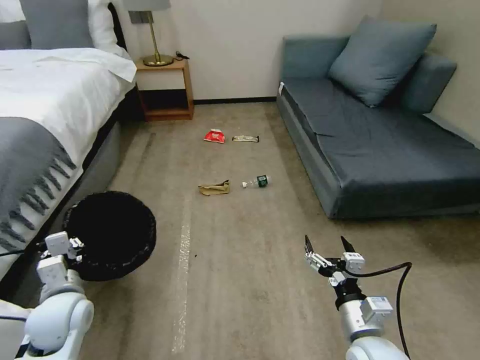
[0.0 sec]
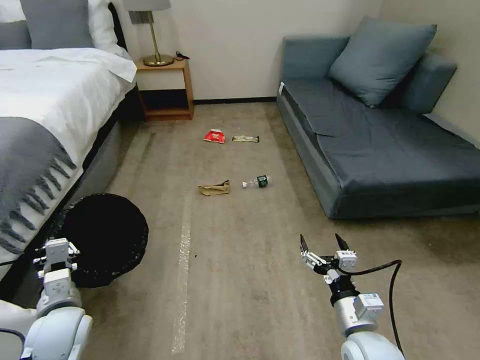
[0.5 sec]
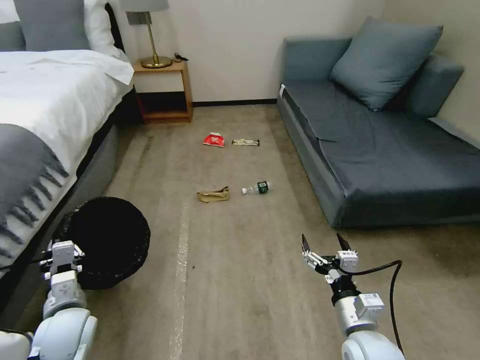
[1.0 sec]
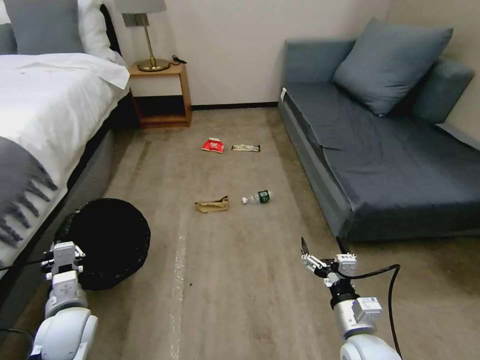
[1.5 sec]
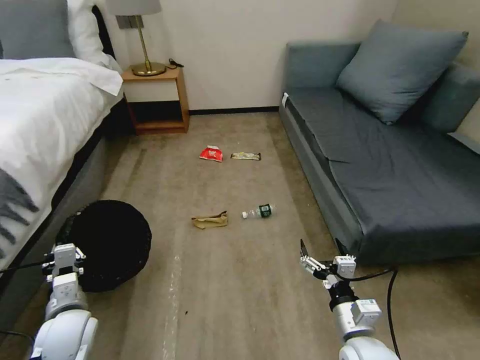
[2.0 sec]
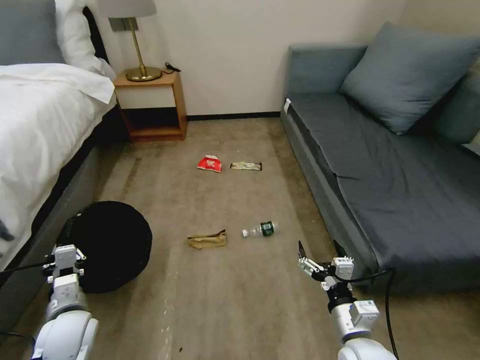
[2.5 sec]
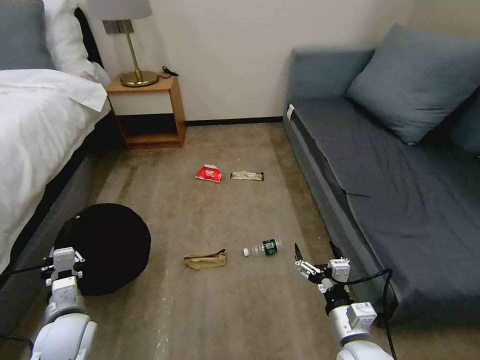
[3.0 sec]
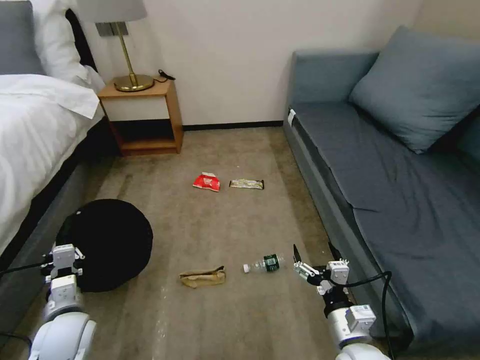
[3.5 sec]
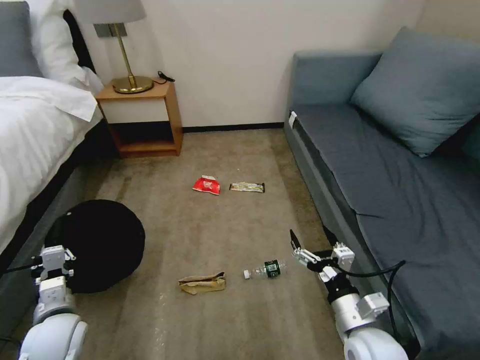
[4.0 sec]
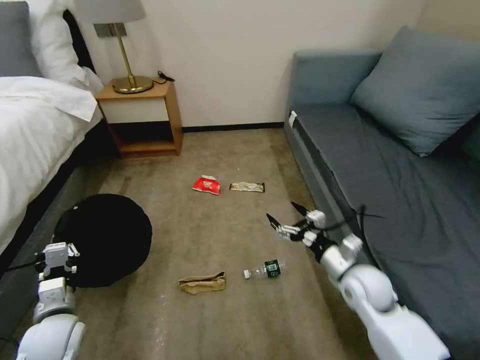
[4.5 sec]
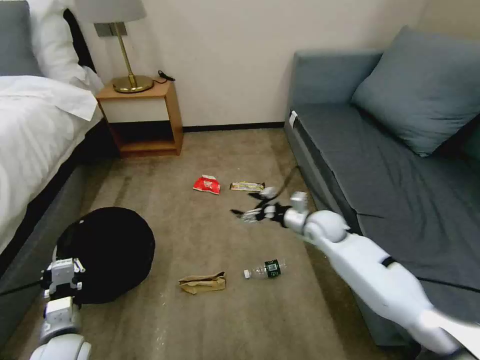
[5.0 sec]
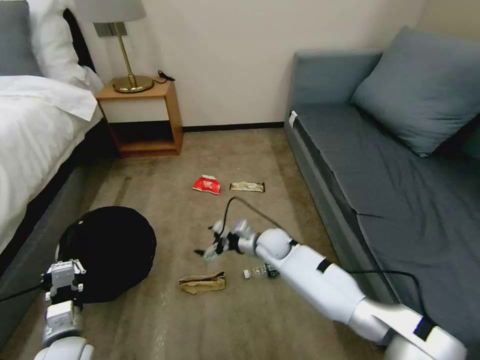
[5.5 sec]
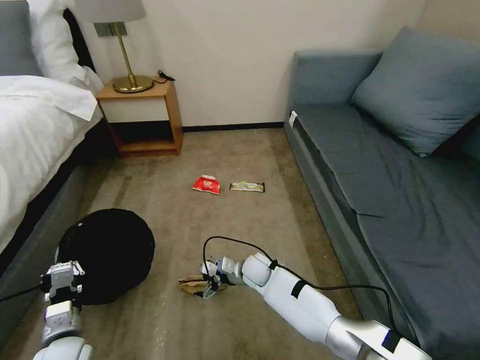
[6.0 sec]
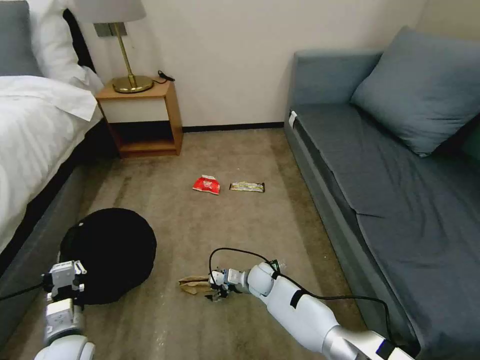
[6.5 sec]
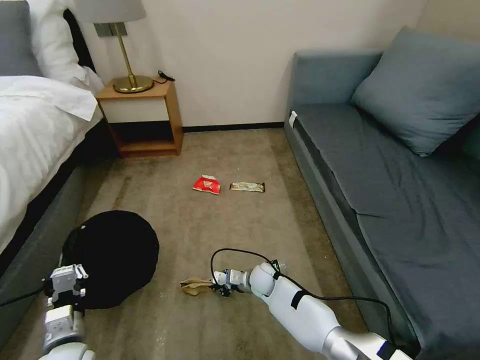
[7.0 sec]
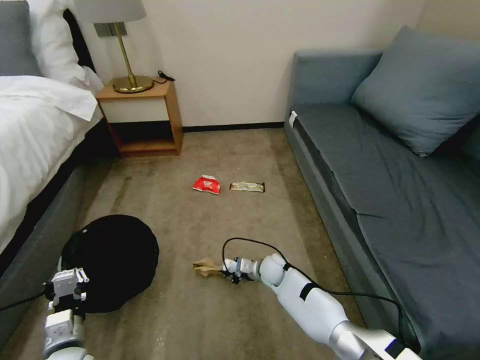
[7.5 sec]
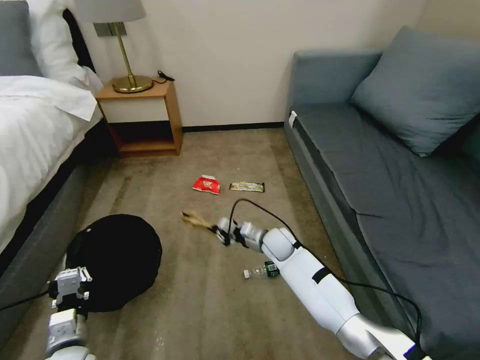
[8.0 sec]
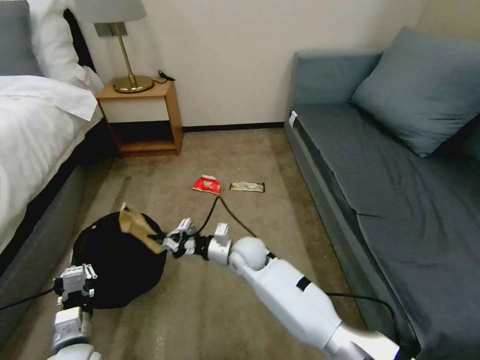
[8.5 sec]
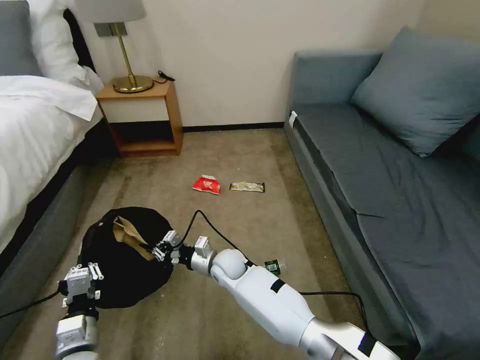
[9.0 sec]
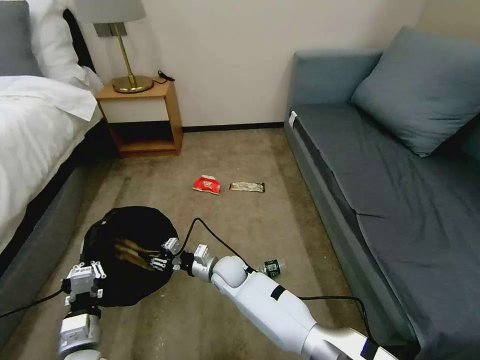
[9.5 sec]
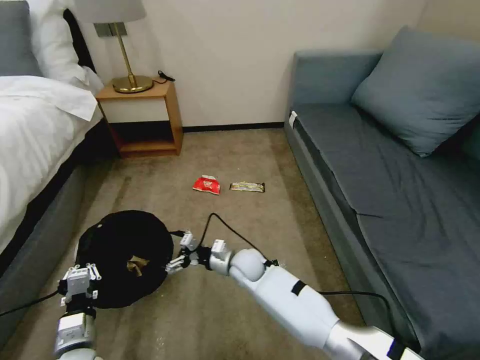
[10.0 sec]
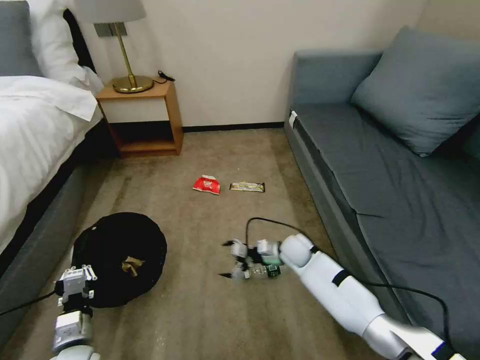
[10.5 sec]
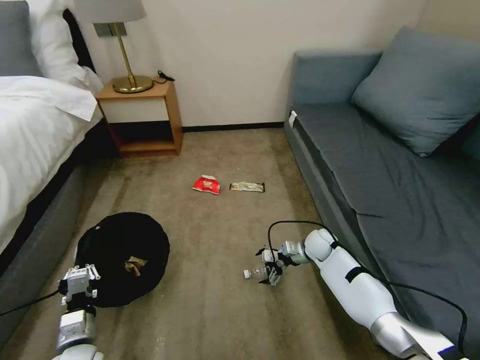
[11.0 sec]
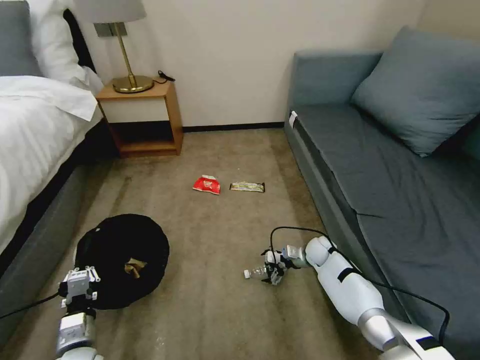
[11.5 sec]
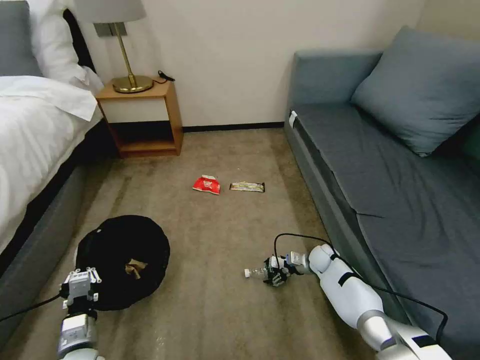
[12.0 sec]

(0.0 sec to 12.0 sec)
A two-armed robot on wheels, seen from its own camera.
Task of the whole recording: Pick up the trash bin, then pick up the garbage on the floor and place it into the trash bin.
0.0 sec - 2.0 sec: The left gripper ends up approximately 5 cm from where it was.
4.0 sec - 6.0 sec: The right gripper is displaced forward, to the left and downward by some 35 cm. Meanwhile the left gripper moves approximately 5 cm.
6.0 sec - 8.0 sec: The right gripper goes about 10 cm upward and to the right, and closes up.
8.0 sec - 10.0 sec: The right gripper moves to the left and backward, some 10 cm, and opens up.
10.0 sec - 12.0 sec: The right gripper goes about 25 cm to the right.

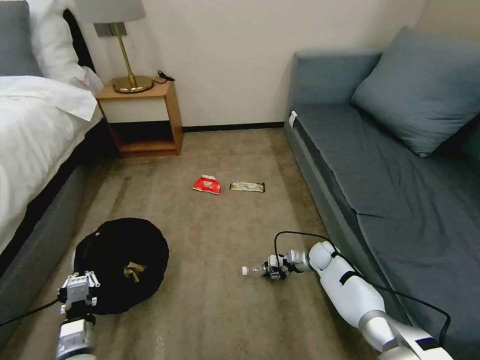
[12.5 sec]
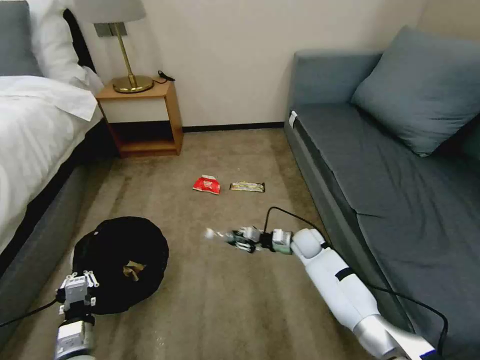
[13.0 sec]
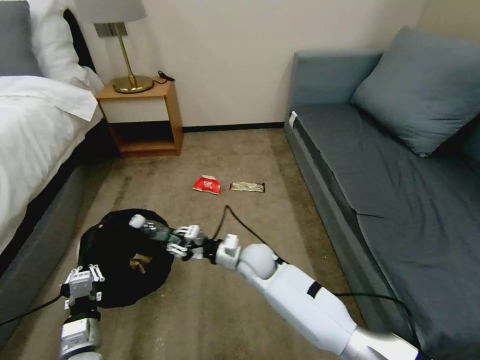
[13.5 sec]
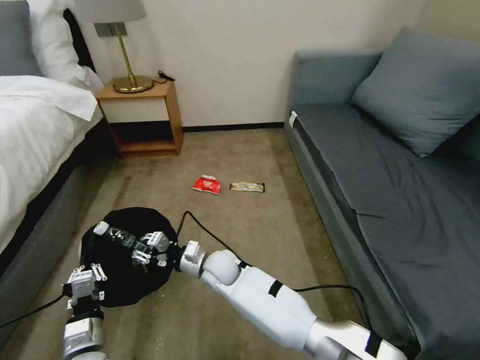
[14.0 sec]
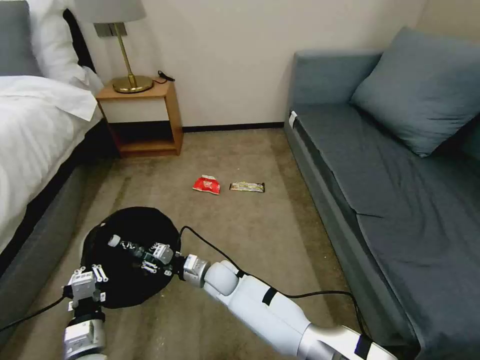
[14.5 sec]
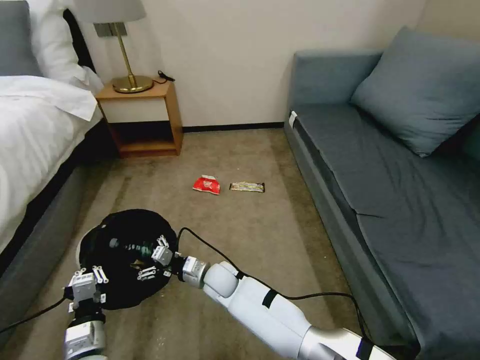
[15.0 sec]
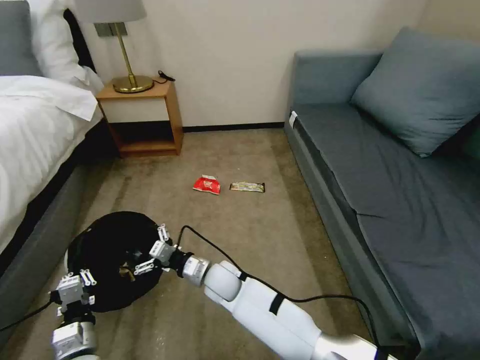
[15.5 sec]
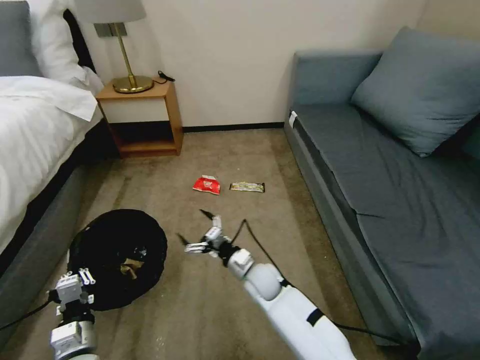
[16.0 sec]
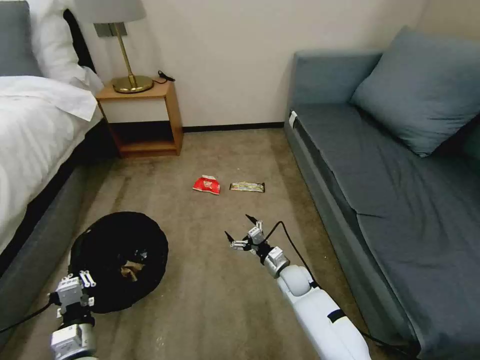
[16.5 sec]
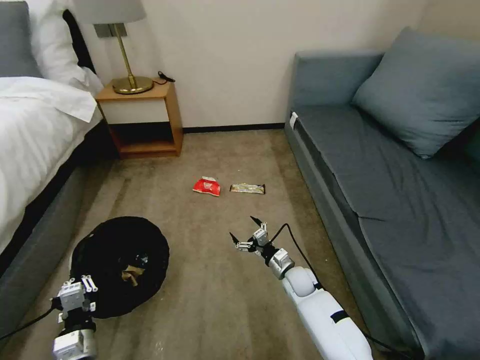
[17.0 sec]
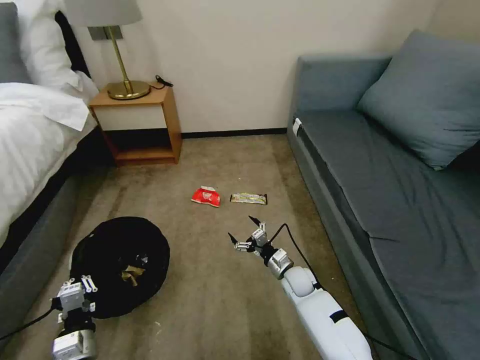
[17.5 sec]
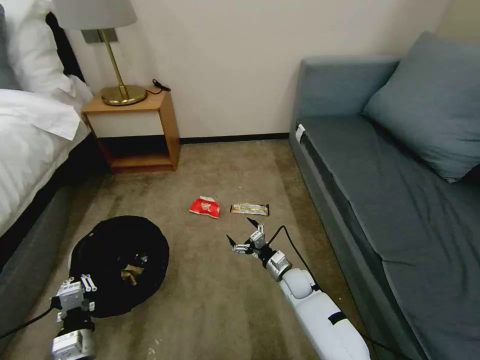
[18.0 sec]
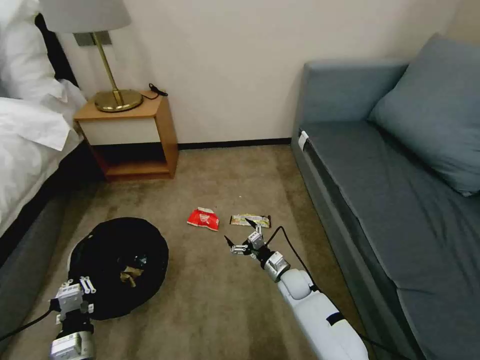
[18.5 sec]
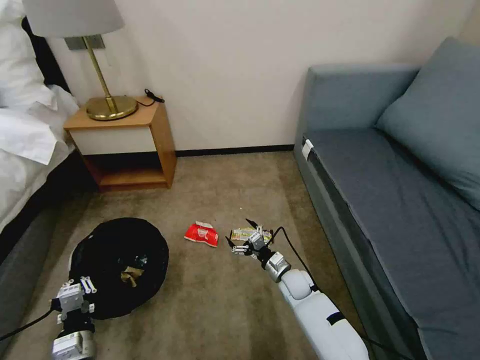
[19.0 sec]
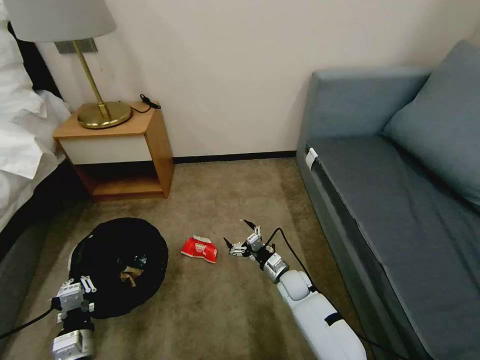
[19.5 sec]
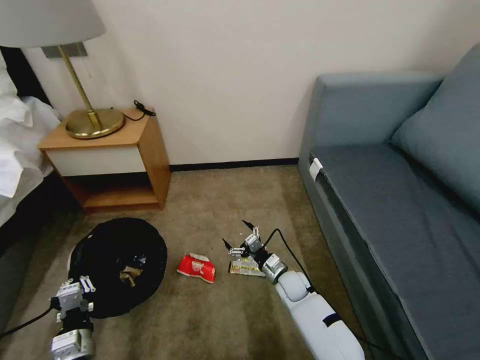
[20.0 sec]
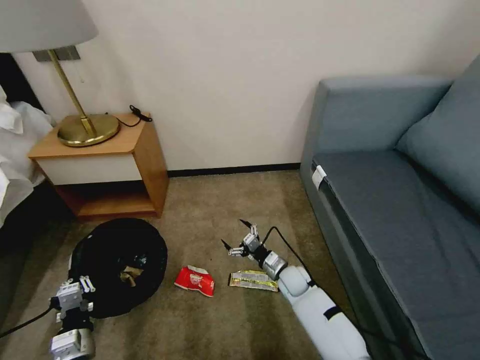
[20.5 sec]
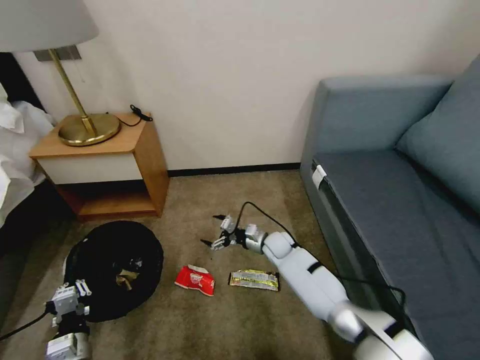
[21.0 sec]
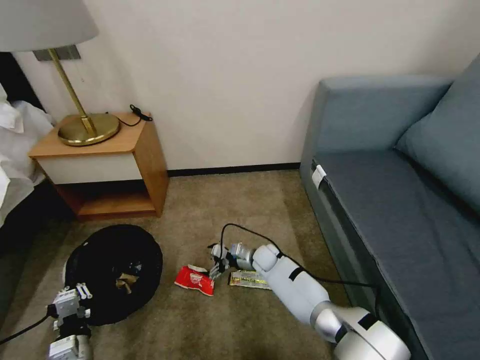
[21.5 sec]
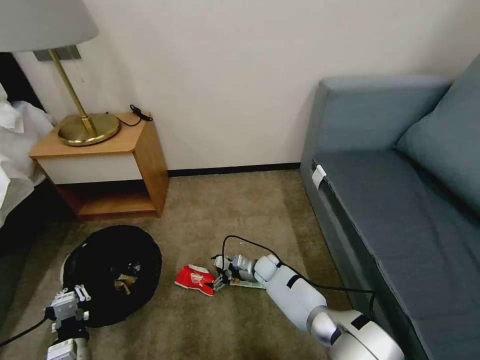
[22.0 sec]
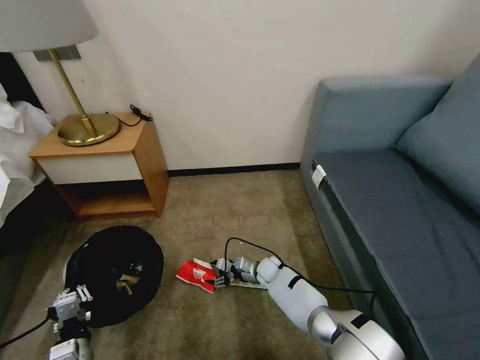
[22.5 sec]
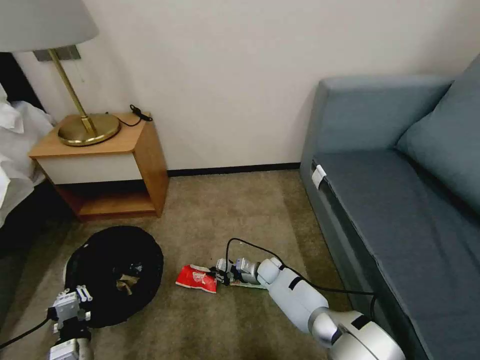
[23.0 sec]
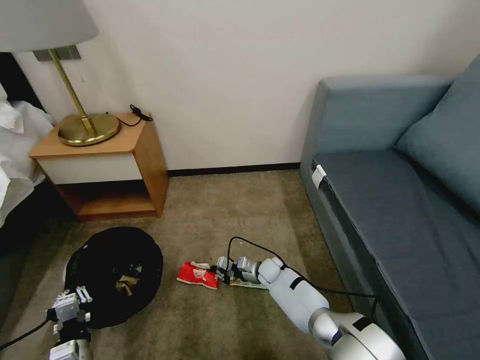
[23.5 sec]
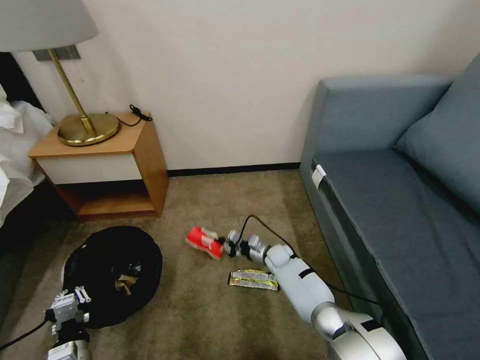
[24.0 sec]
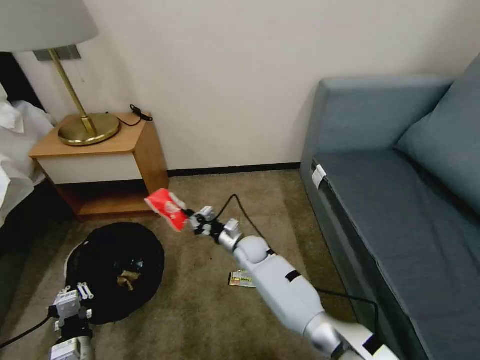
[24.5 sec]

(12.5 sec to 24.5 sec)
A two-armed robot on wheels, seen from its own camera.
Task of the whole recording: Pick up the trash bin, then pick up the garbage on the floor and place it into the trash bin.
12.5 sec - 14.5 sec: The right gripper heads to the left, covering roughly 35 cm.
14.5 sec - 16.5 sec: The right gripper moves to the right, roughly 20 cm, and opens.
20.5 sec - 22.5 sec: The right gripper goes about 10 cm to the left and forward.
22.5 sec - 24.5 sec: The right gripper shifts about 15 cm upward and to the left, and closes its fingers.

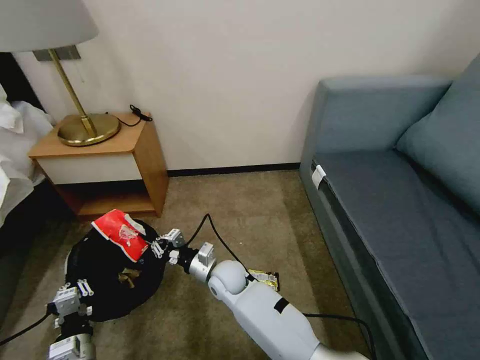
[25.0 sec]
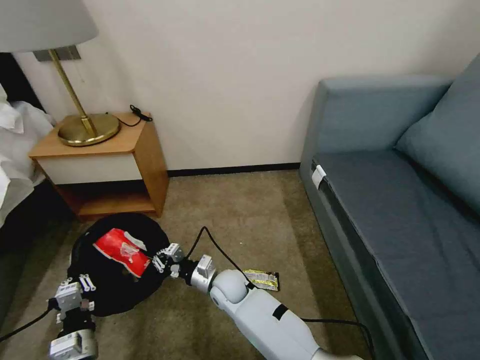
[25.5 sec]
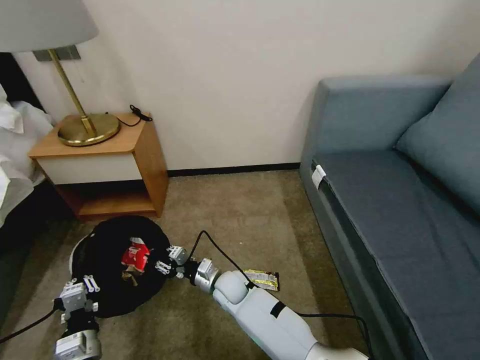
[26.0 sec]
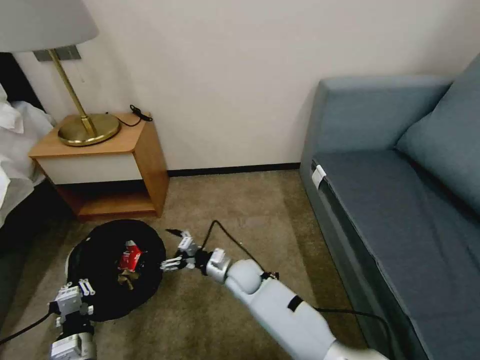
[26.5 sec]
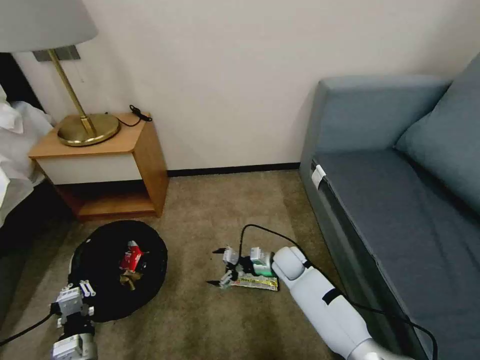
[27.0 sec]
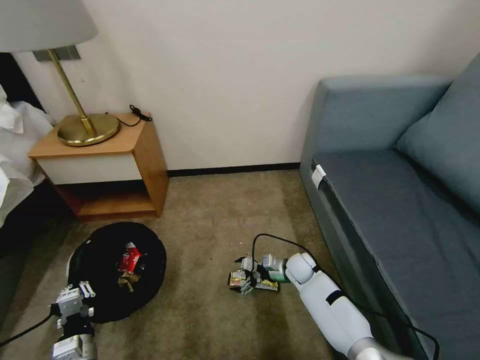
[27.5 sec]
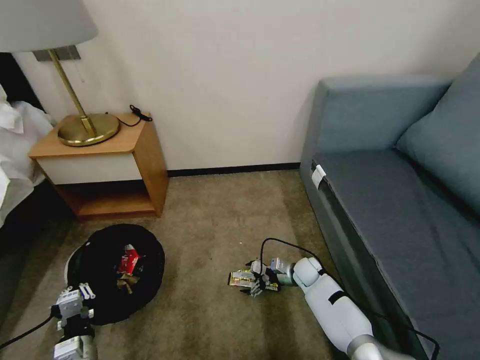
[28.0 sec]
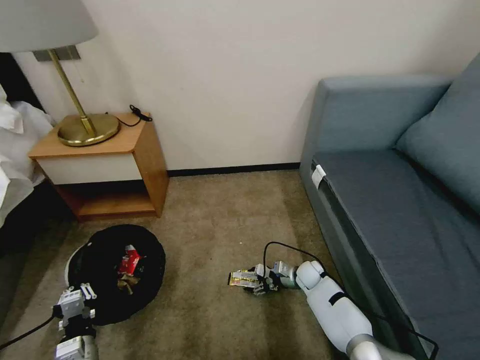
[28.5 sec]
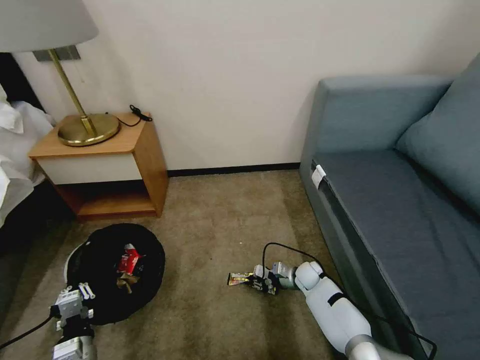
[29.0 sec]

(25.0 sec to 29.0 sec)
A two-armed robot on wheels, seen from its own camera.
Task of the whole recording: Pick up the trash bin, then pick up the garbage on the floor and place it into the trash bin.
25.0 sec - 27.0 sec: The right gripper goes approximately 20 cm to the right, and opens up.
27.0 sec - 29.0 sec: The right gripper travels downward and to the right by approximately 15 cm, and closes its fingers.
